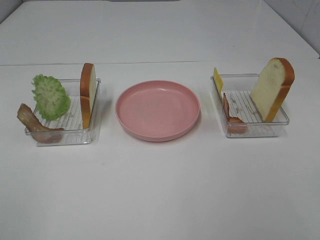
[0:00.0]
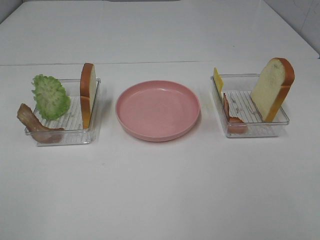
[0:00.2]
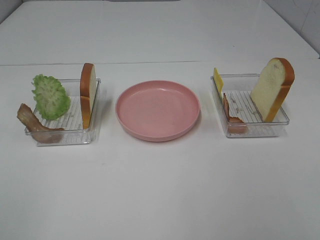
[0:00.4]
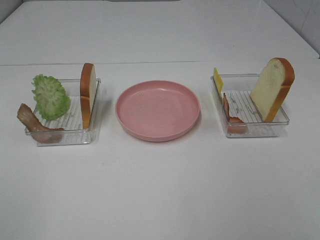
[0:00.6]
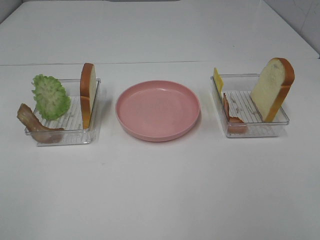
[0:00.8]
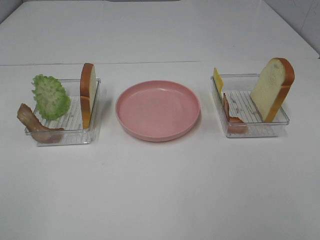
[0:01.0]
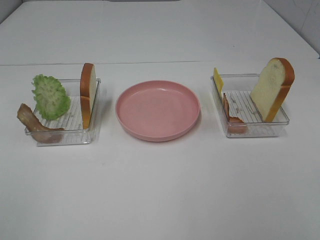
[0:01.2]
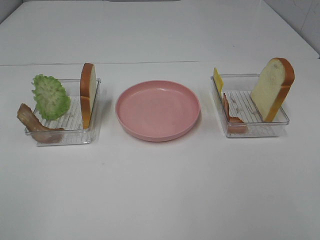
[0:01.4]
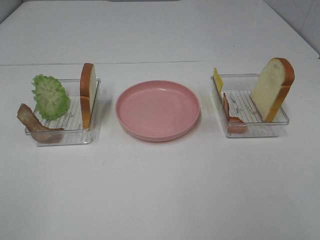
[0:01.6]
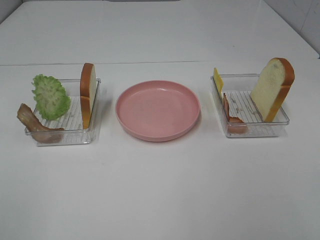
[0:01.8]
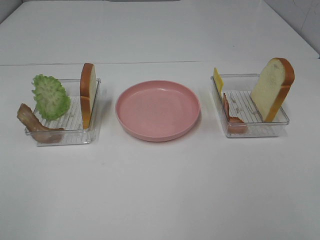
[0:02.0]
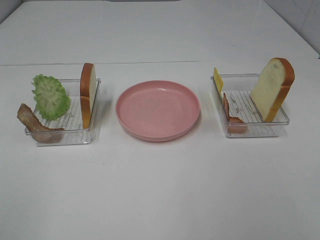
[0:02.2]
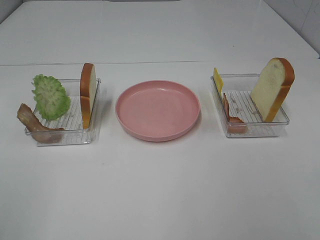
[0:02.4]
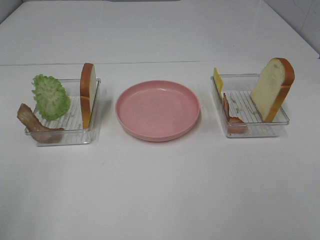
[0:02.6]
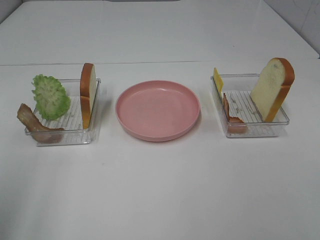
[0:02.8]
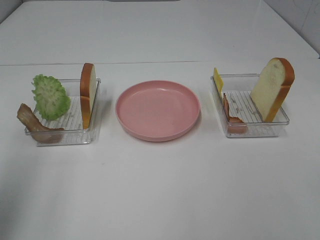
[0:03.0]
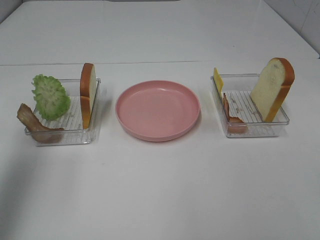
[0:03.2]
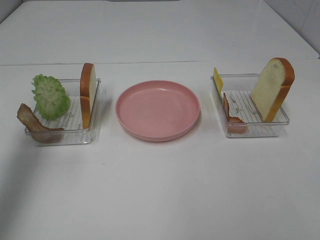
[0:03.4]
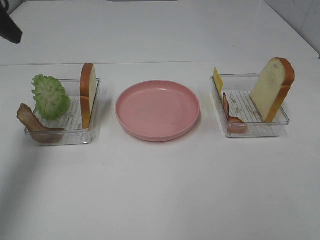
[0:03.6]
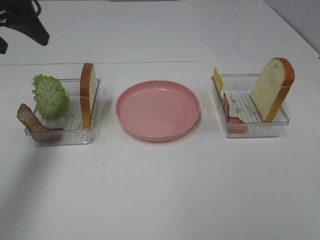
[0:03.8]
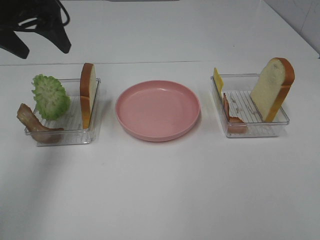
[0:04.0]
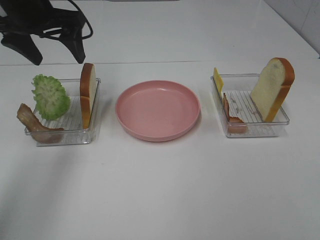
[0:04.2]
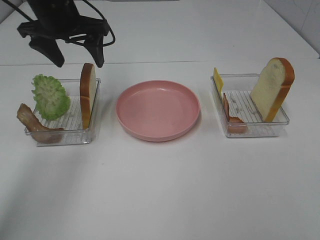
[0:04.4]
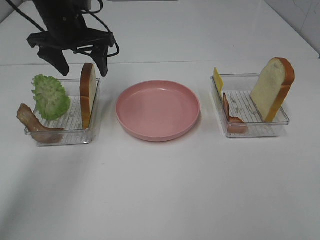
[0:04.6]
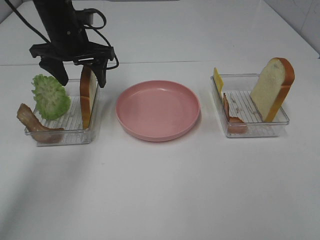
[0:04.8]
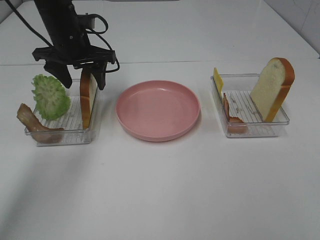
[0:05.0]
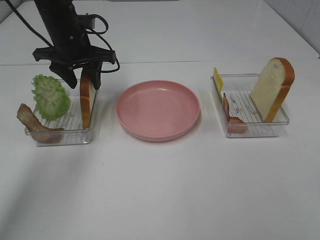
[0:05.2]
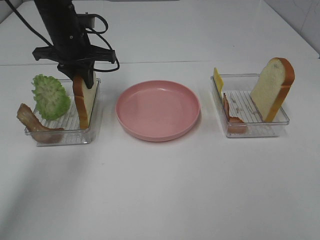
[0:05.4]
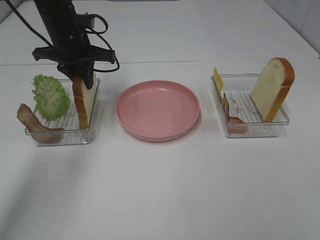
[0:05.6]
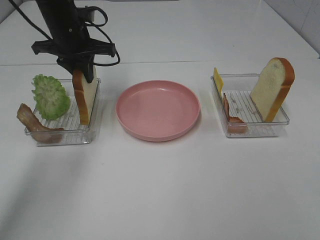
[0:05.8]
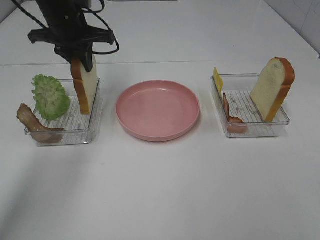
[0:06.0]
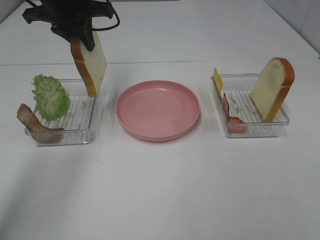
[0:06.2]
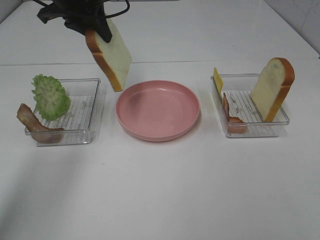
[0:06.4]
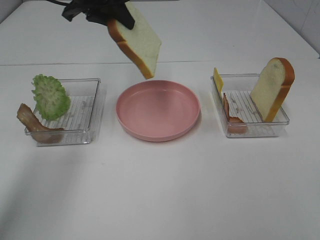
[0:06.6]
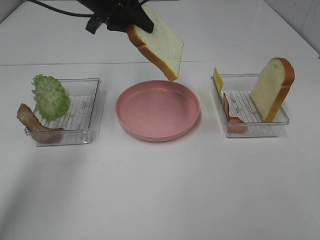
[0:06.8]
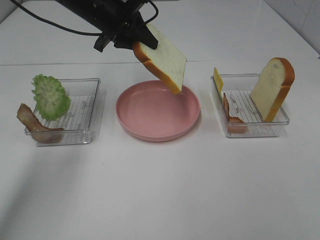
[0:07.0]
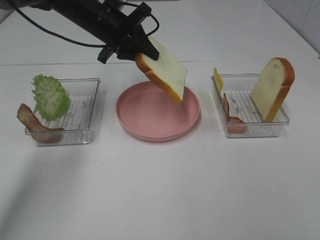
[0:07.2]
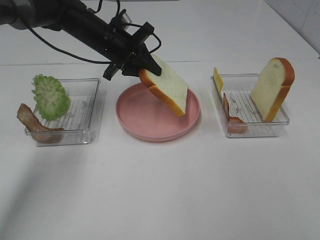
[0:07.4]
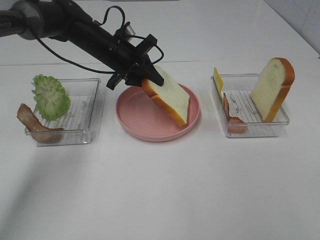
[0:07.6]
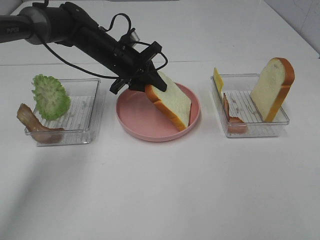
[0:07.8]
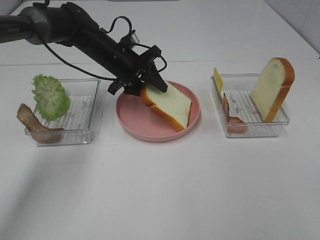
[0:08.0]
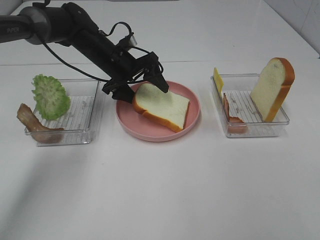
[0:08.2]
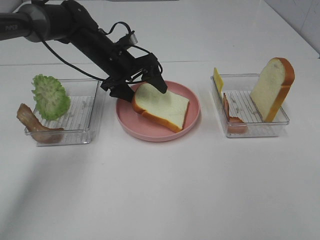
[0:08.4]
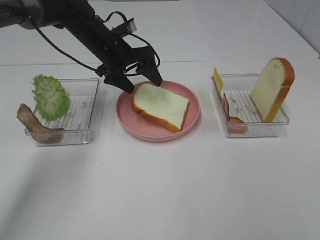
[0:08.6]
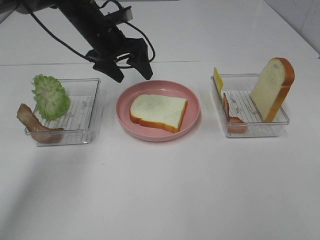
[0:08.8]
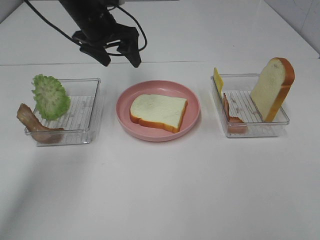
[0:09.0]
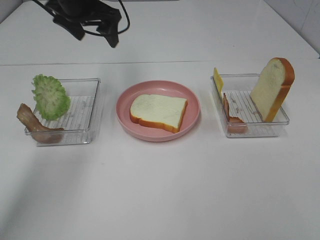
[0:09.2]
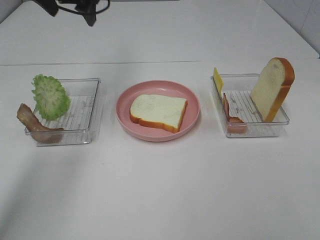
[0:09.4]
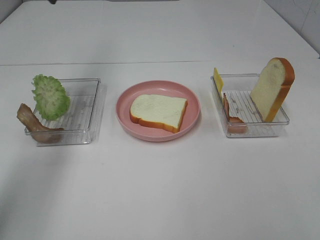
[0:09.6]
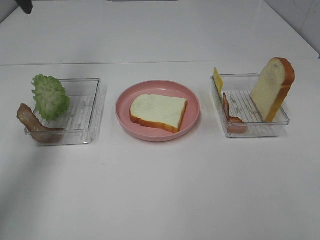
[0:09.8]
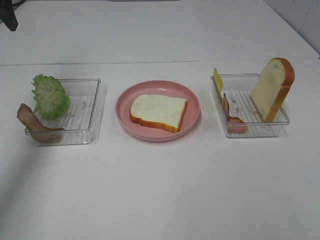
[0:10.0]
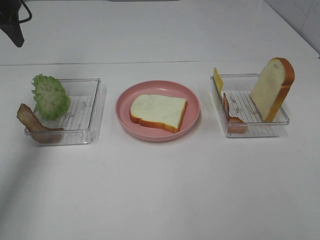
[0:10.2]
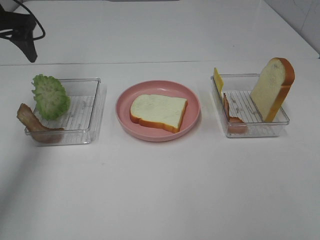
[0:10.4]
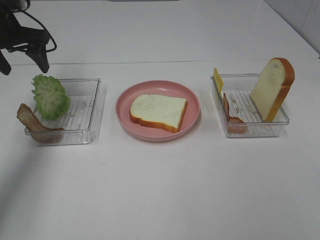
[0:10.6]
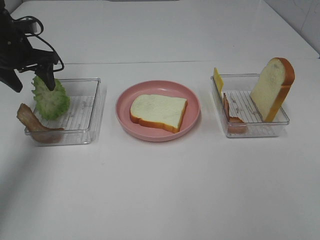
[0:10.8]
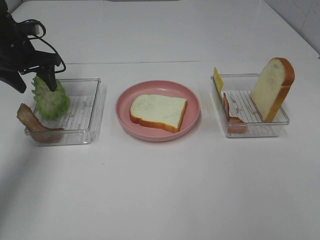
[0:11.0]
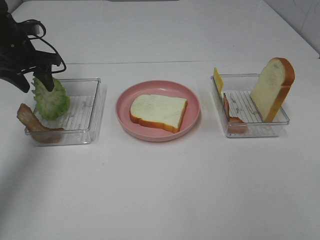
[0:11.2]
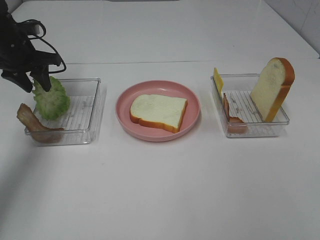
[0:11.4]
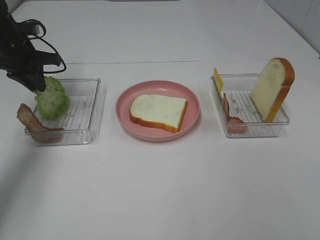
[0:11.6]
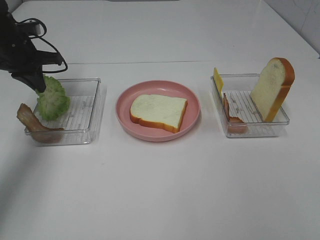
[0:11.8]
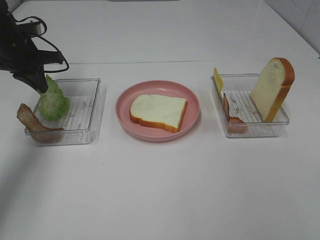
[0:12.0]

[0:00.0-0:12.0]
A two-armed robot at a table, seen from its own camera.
Task of the whole recording: Make sandwiches.
Step, 0.0 to 5.2 s: Left hand:grab the bread slice.
Step, 5.4 to 8.6 s: Left hand:place the bread slice on the plate.
Step, 8.8 to 11.6 s: Left hand:grab the lettuce slice.
0.0 to 1.6 s: Both grippers stay about where they are.
1.6 to 3.0 s: The left gripper heads forward, covering about 15 cm.
3.0 to 4.4 s: The left gripper is displaced forward and to the right by some 30 cm.
4.4 to 6.0 s: The left gripper closes.
6.0 to 7.6 s: The left gripper moves downward and to the right, about 10 cm.
7.6 to 9.0 s: The left gripper moves upward, approximately 10 cm, and opens.
9.0 to 10.4 s: The left gripper travels to the left by roughly 15 cm.
10.4 to 12.0 s: The left gripper heads downward, covering some 10 cm, and closes.

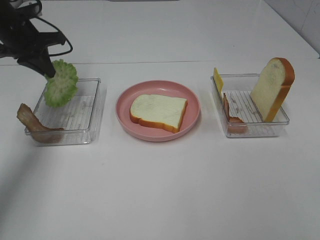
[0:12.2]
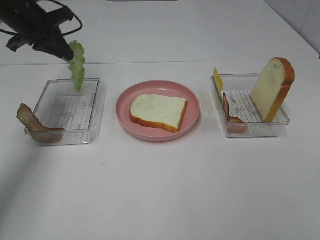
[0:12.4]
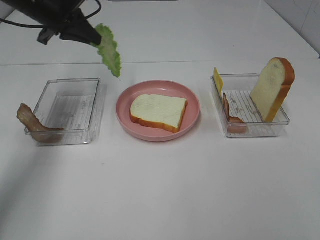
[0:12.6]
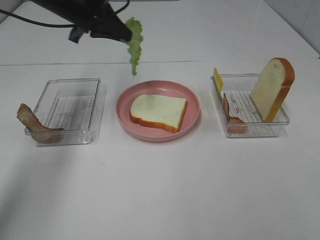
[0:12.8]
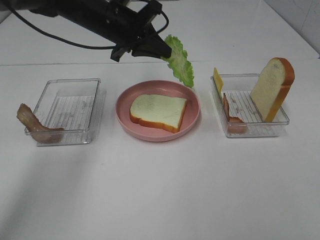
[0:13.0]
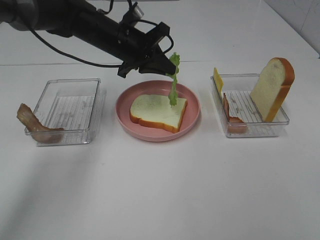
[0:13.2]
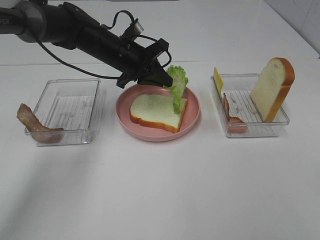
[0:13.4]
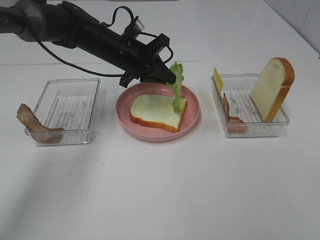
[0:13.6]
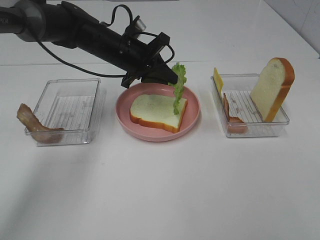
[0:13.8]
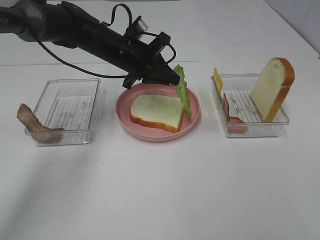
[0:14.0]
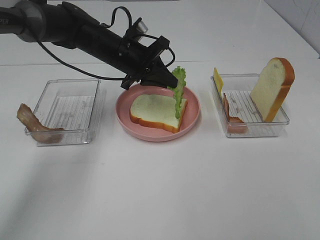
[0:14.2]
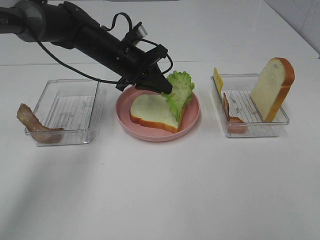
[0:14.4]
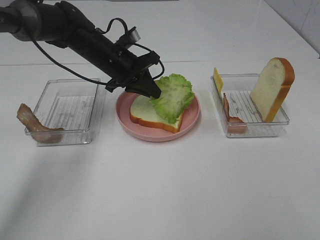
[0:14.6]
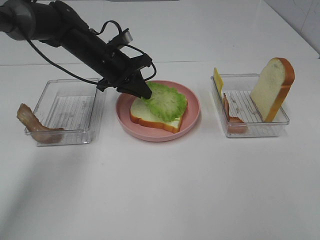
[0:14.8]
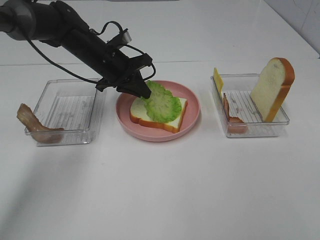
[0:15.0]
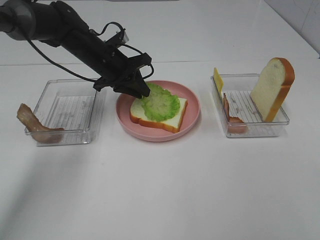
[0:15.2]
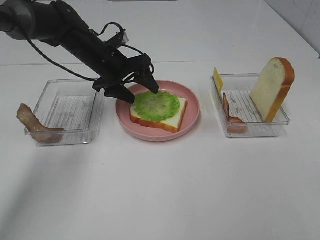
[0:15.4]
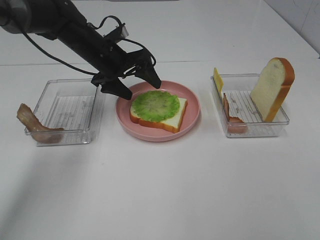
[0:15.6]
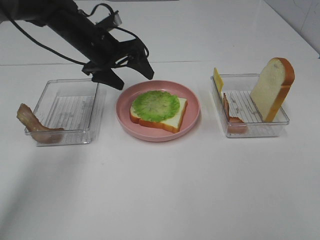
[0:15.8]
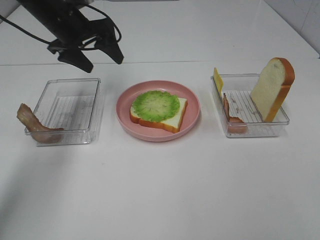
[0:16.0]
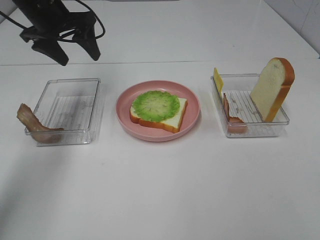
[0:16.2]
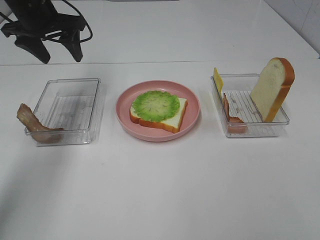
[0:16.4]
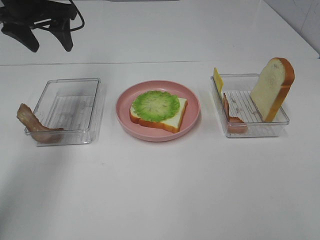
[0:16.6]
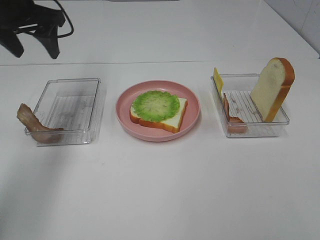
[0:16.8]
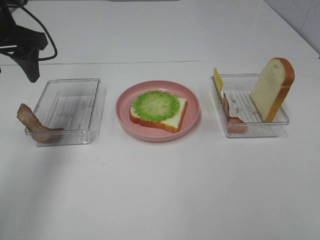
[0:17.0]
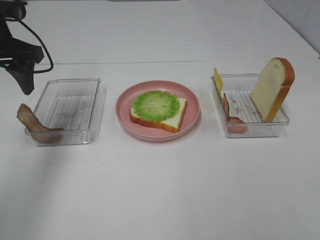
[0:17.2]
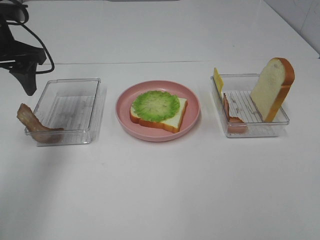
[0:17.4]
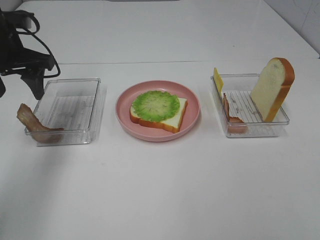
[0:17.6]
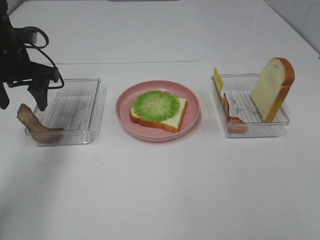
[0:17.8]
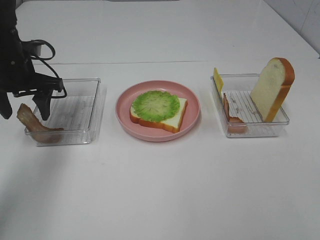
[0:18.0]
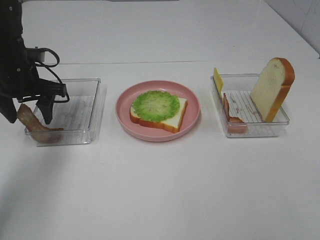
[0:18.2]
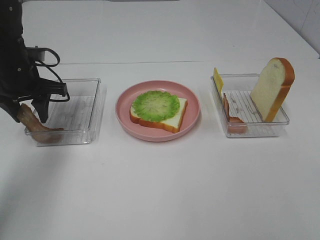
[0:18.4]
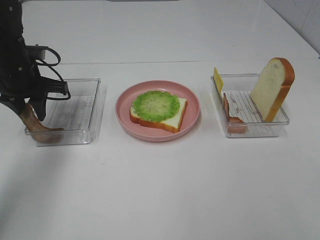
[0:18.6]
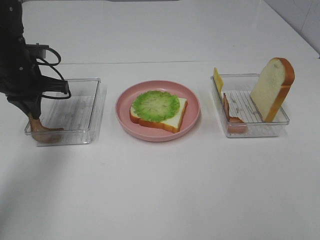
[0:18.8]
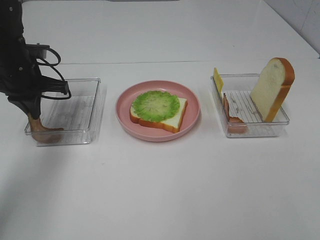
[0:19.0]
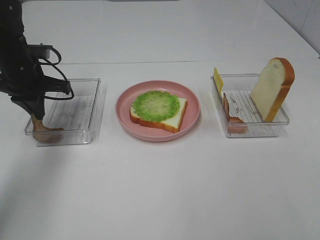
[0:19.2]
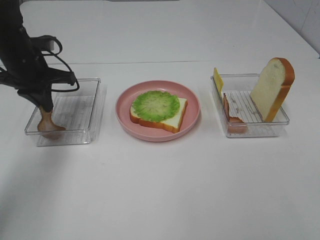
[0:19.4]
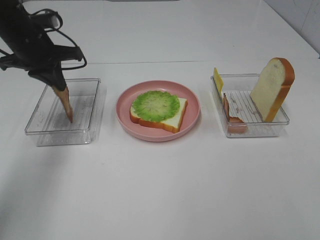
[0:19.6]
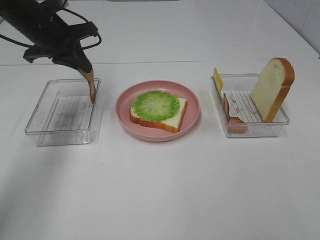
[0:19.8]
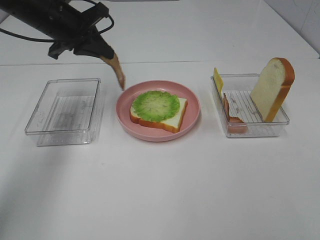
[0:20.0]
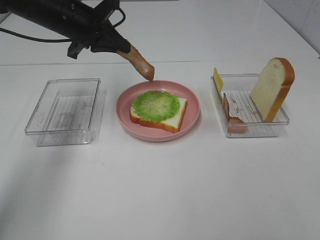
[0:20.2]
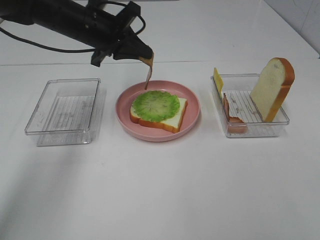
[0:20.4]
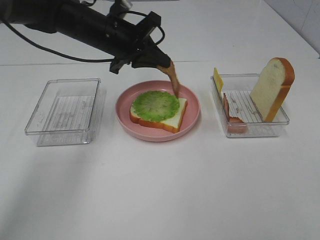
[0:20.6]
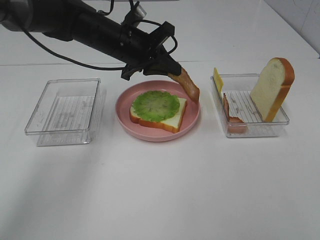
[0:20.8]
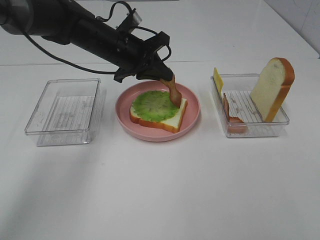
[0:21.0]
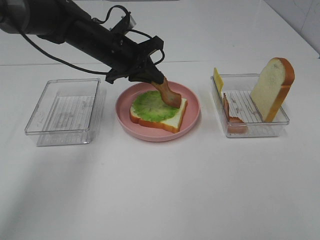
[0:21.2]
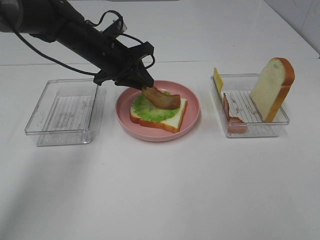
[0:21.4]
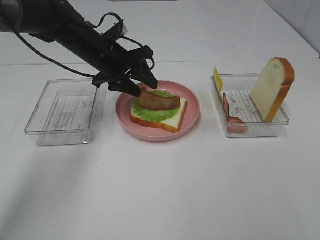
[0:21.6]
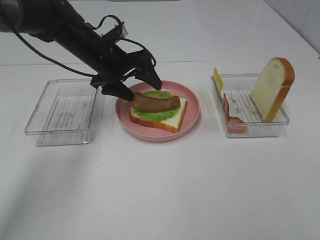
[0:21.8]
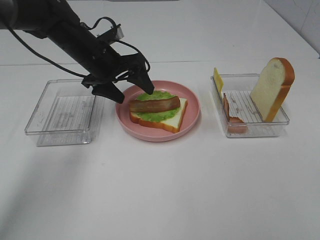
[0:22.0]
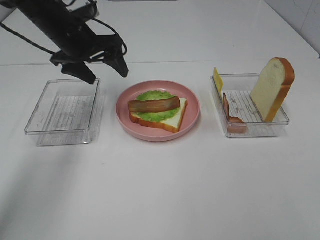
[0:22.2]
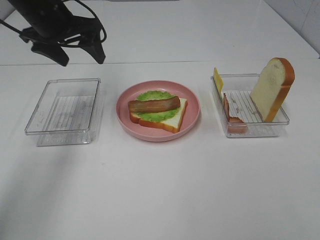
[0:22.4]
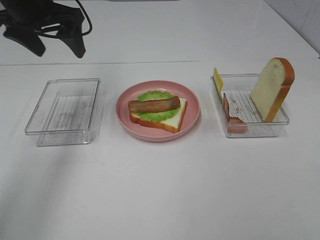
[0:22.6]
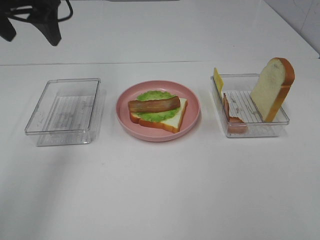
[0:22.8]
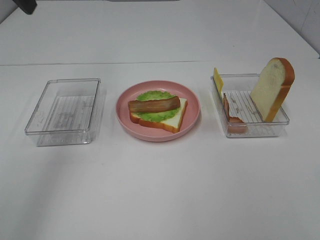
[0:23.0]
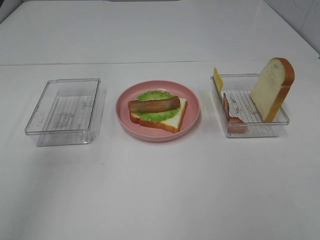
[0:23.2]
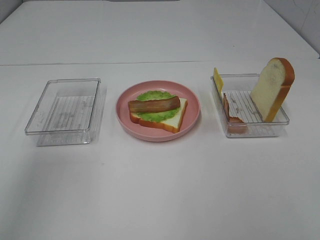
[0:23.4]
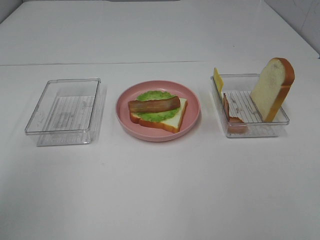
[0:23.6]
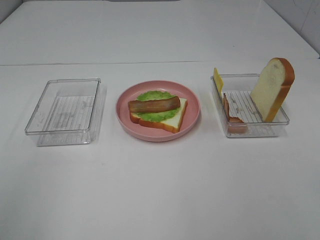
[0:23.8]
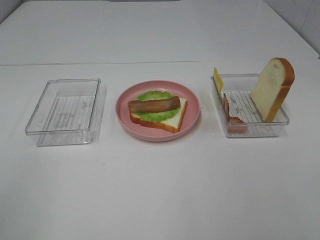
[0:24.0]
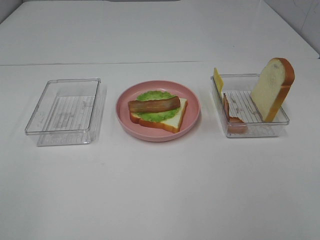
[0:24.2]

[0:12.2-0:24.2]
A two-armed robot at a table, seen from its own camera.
Task of the whole recording: Make sandwiches.
Step, 12.2 to 15.8 s: Left hand:place the lettuce slice on the bread slice.
Step, 16.0 to 19.2 s: Left hand:grab the bacon.
Step, 19.4 to 22.0 s: Left hand:place bacon on lettuce slice.
12.2 to 13.8 s: The left gripper heads to the right, covering some 20 cm.
13.8 to 15.2 s: There are only small adjustments of the grippers.
15.2 to 16.6 s: The left gripper moves upward and to the left, roughly 20 cm, and opens.
16.6 to 18.2 s: The left gripper moves downward, roughly 10 cm.
18.2 to 19.8 s: The left gripper is displaced upward by roughly 5 cm, and closes up.
19.8 to 21.2 s: The left gripper goes approximately 10 cm to the right and downward.
21.2 to 22.6 s: The left gripper shifts some 15 cm upward and to the left, and opens up.
22.6 to 24.2 s: The left gripper moves backward, about 40 cm.
